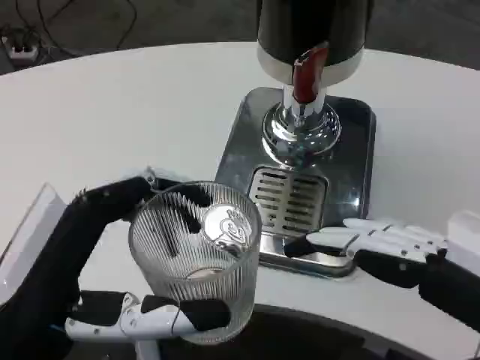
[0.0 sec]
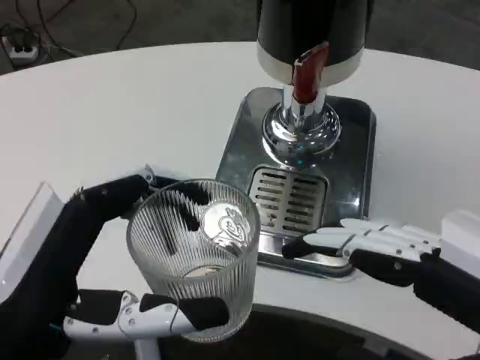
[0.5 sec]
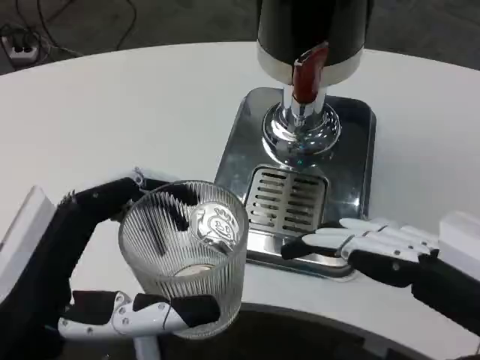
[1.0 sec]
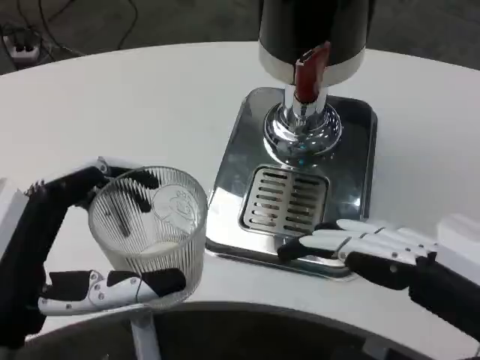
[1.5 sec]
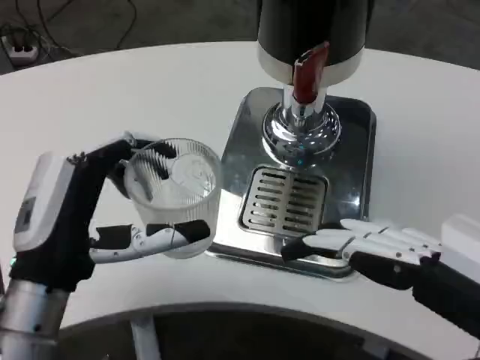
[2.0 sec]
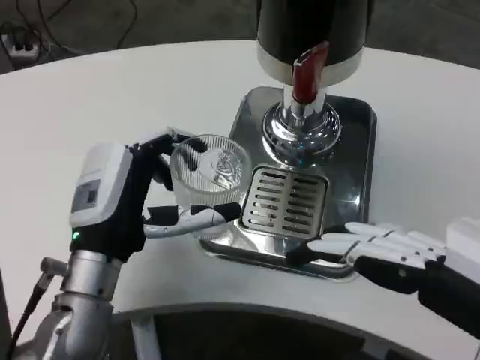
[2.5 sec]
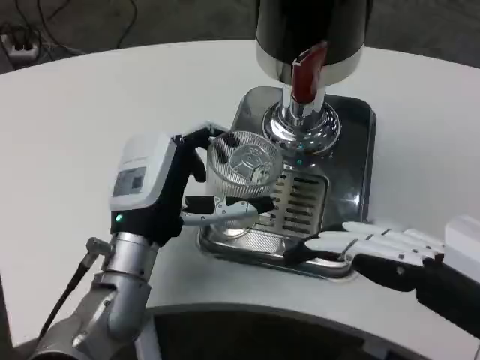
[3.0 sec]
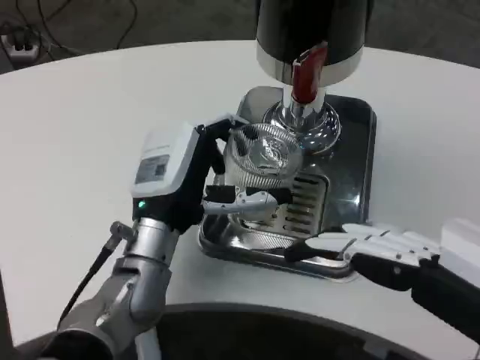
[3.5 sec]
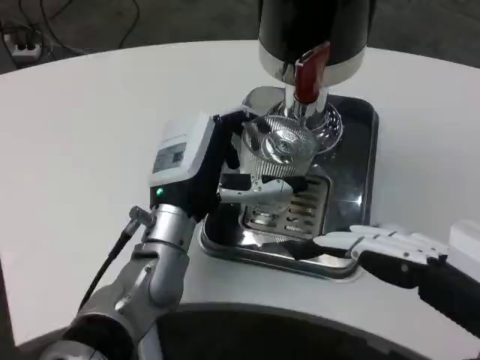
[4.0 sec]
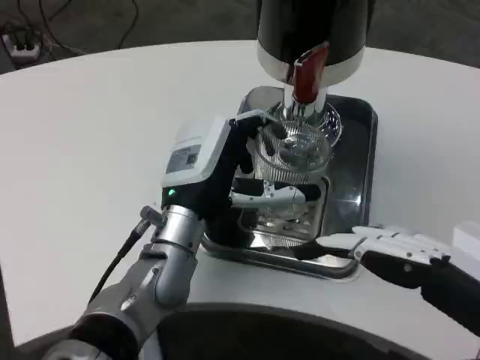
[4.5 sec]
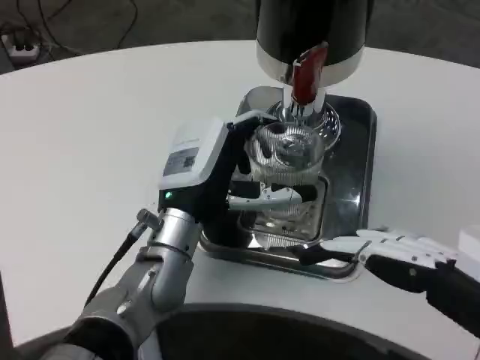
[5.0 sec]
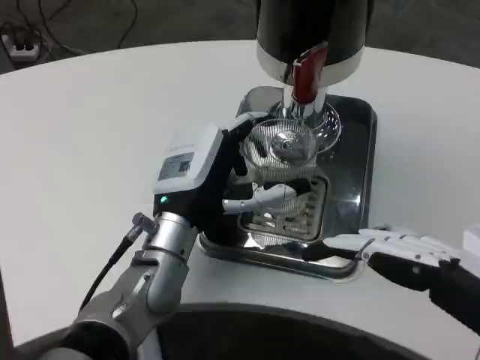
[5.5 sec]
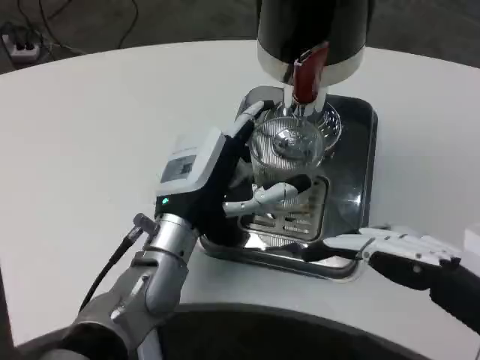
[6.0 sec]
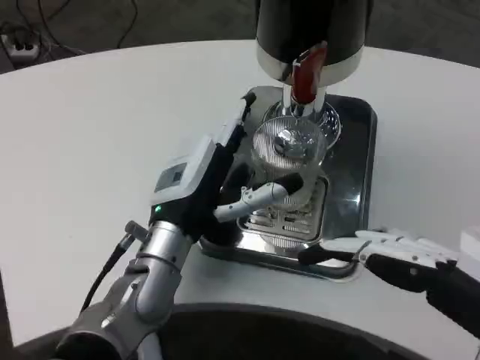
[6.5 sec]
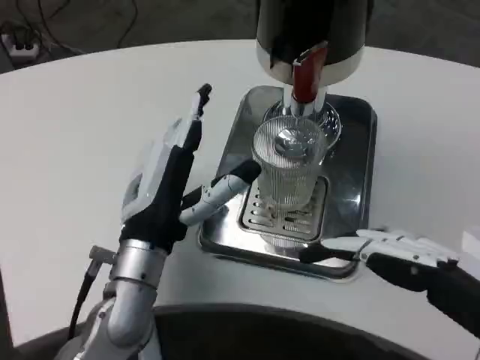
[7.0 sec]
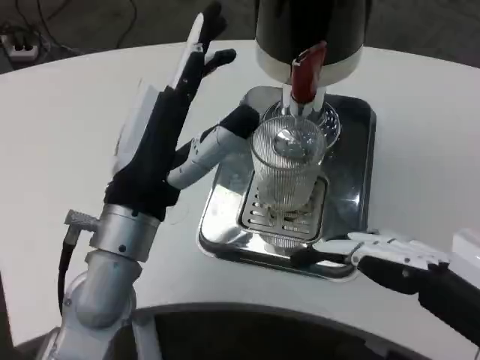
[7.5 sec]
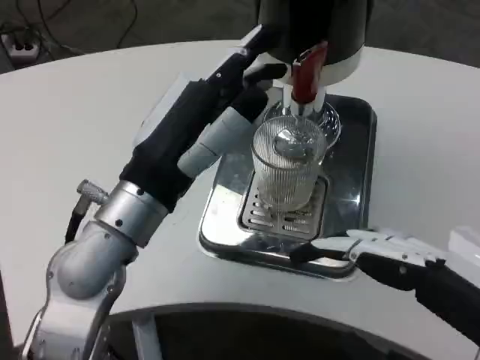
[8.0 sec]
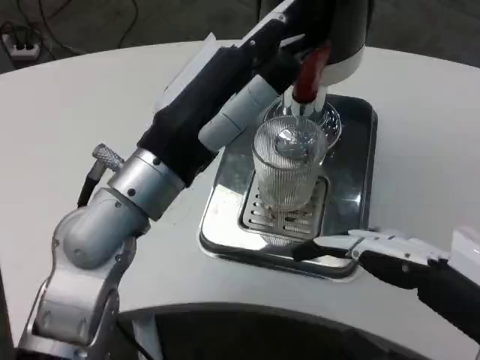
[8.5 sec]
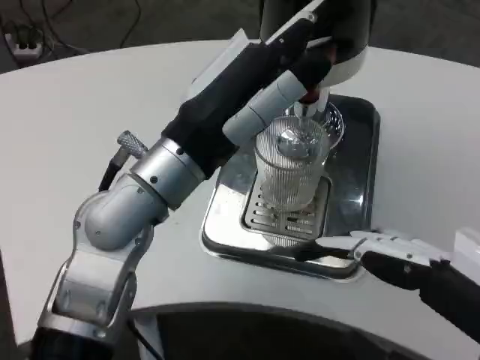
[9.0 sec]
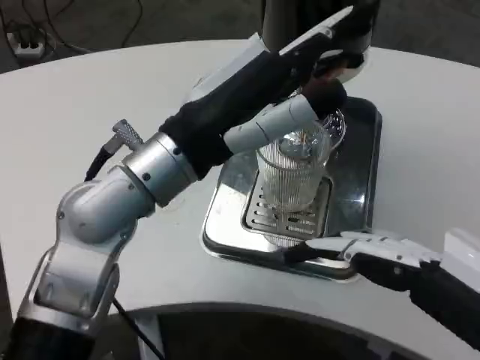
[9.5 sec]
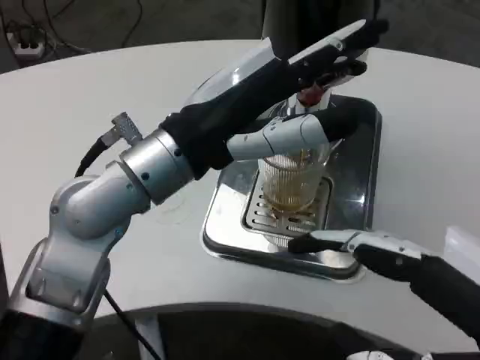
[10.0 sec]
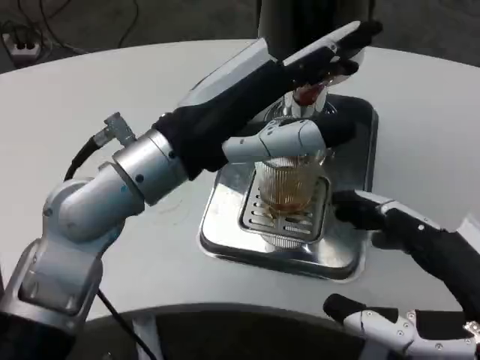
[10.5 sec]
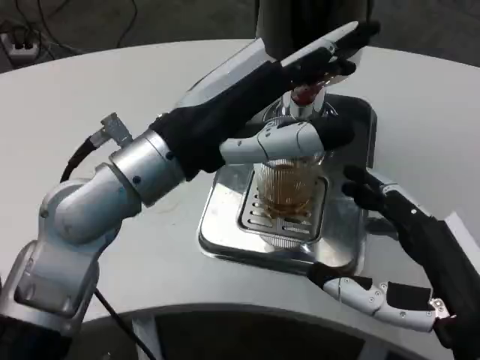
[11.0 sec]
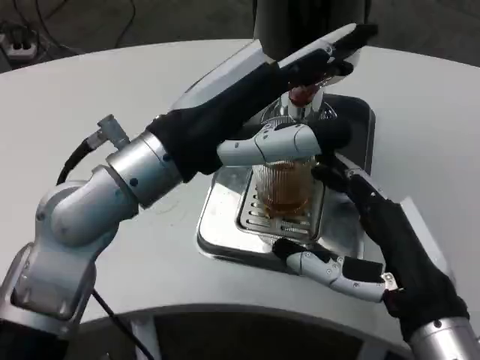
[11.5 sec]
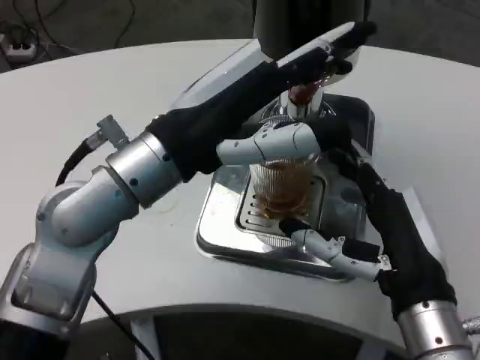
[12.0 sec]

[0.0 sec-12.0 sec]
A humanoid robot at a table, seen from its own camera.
Task of the whole recording: Grasp the cup under the faucet to collect the drink, then remove the cup.
0.0 sec to 2.0 sec: The left hand shifts approximately 10 cm forward.
2.0 sec to 4.0 sec: The left hand heads forward and to the right, covering about 15 cm.
4.0 sec to 6.0 sec: The hands stay close to where they were, moving slightly.
6.0 sec to 8.0 sec: The left hand goes some 10 cm upward.
8.0 sec to 10.0 sec: The left hand goes some 5 cm upward.
10.0 sec to 12.0 sec: The right hand is displaced forward, downward and to the left by approximately 15 cm.

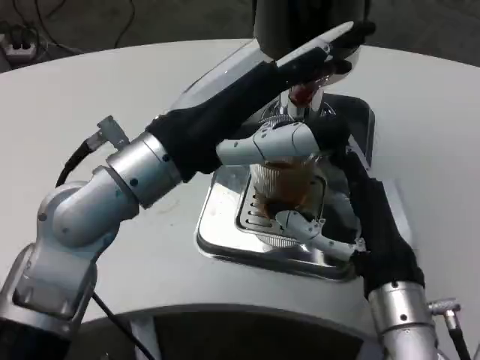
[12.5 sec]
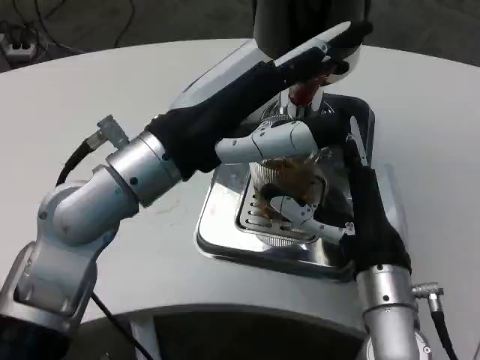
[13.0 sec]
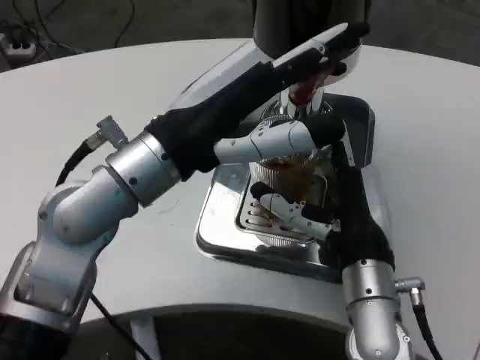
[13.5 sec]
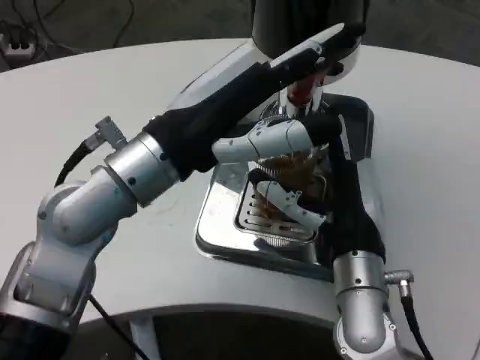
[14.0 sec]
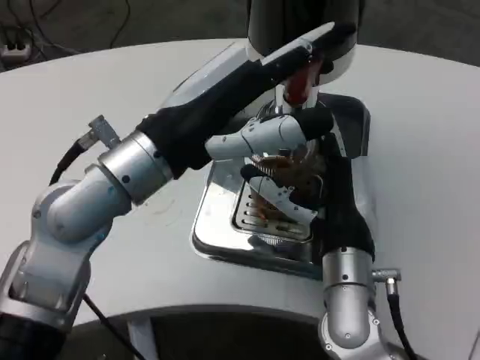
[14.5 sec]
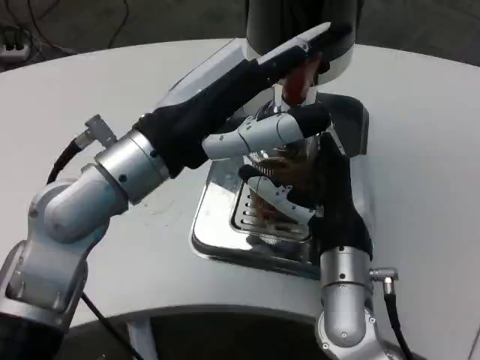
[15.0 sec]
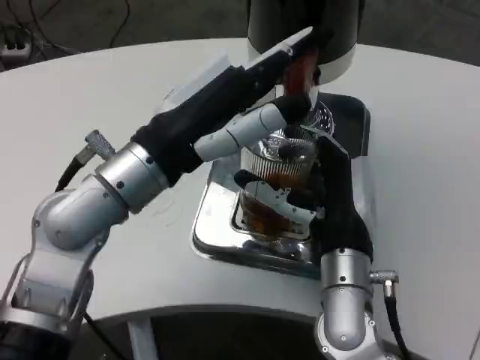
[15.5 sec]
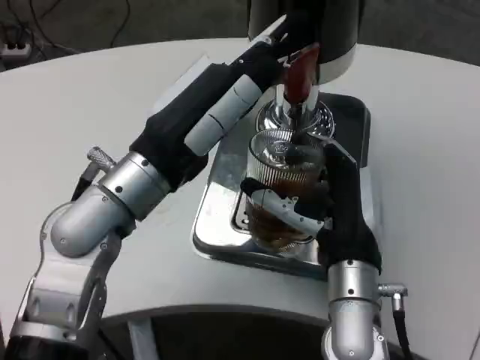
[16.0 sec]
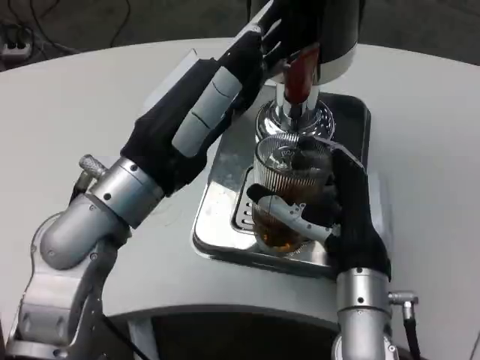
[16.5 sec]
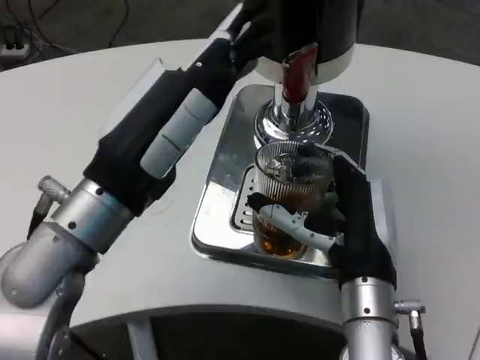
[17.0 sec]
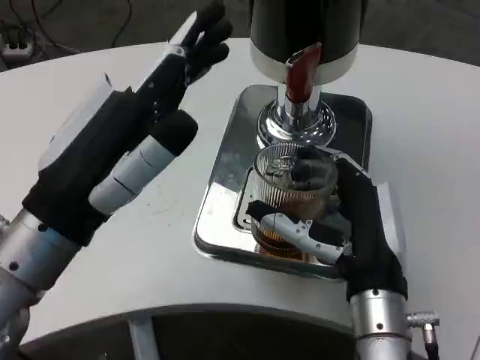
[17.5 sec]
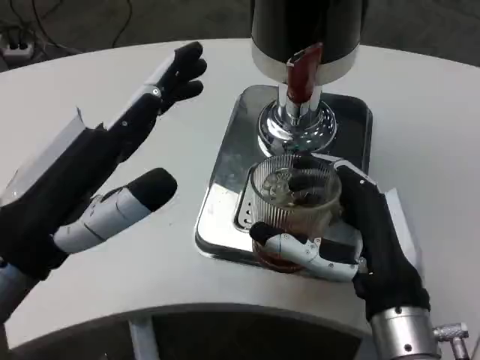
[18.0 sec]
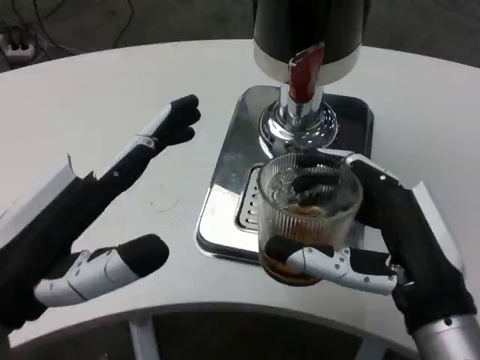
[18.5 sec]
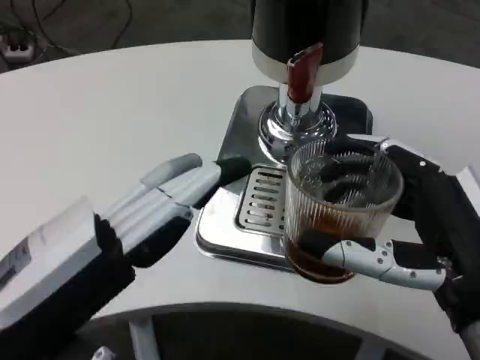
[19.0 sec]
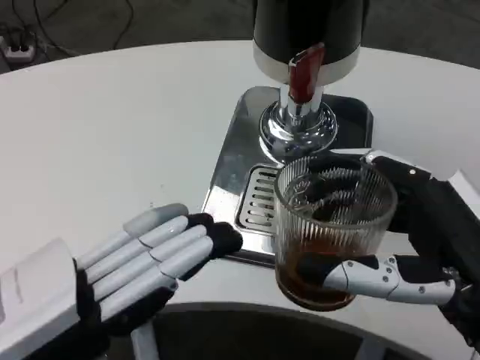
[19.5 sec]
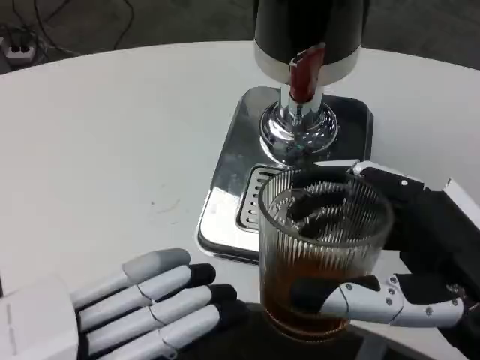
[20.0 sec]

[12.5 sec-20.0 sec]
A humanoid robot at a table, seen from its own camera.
Task of the whole recording: Grasp the cup under the faucet to collect the drink, then remove the cup.
12.5 sec to 14.5 sec: The right hand changes place by some 5 cm.
16.5 sec to 18.0 sec: The left hand moves backward and to the left, roughly 10 cm. Meanwhile the right hand moves backward, roughly 5 cm.
18.0 sec to 20.0 sec: The right hand goes approximately 15 cm backward, upward and to the right, while the left hand heads backward, covering approximately 10 cm.

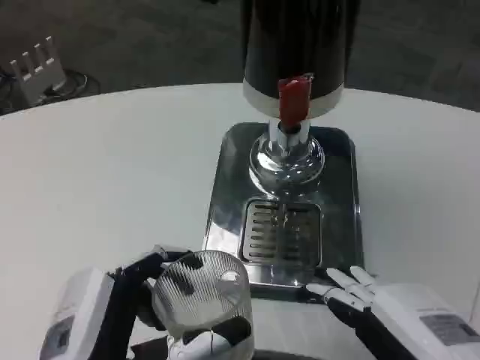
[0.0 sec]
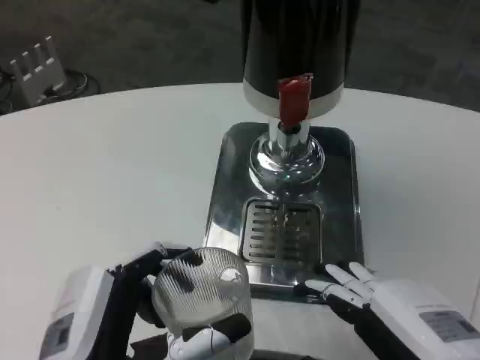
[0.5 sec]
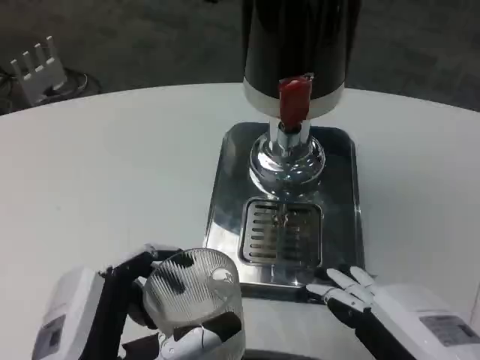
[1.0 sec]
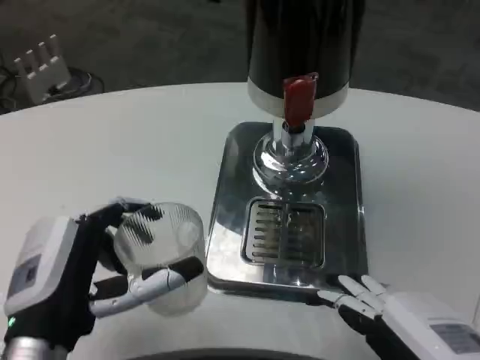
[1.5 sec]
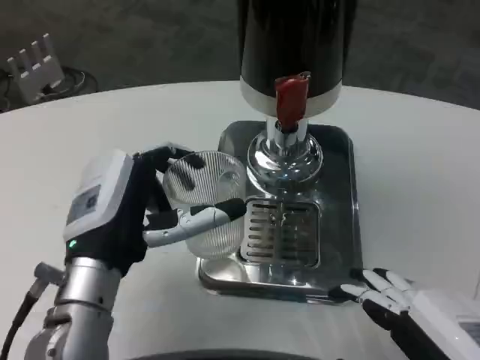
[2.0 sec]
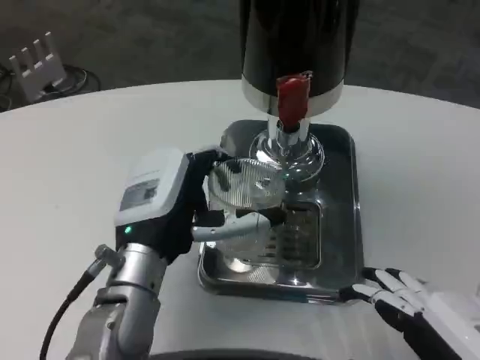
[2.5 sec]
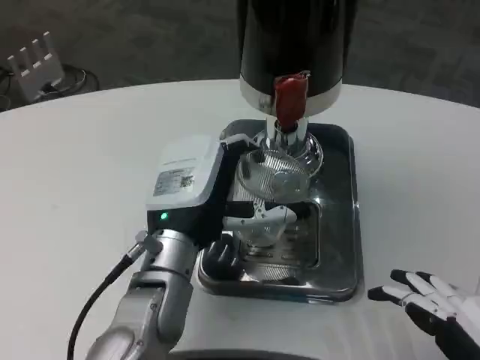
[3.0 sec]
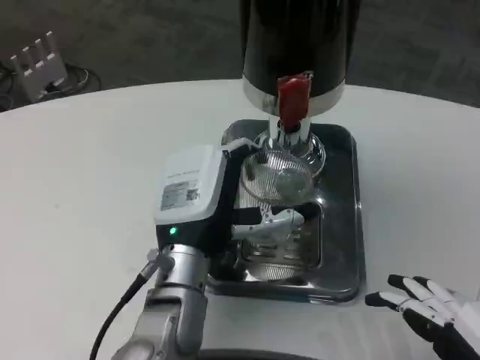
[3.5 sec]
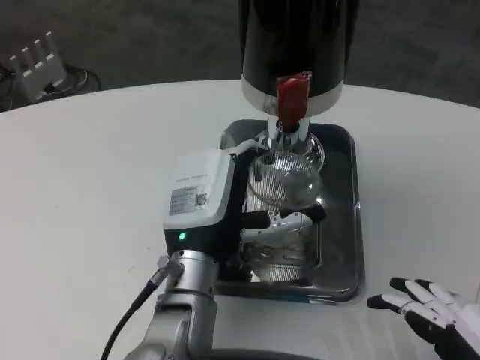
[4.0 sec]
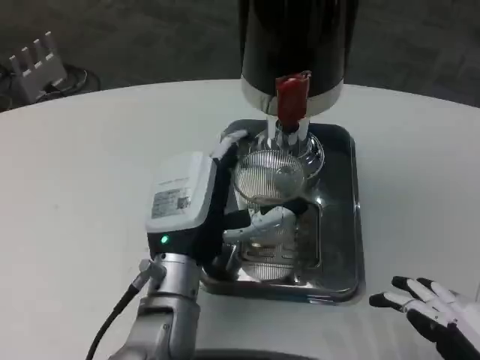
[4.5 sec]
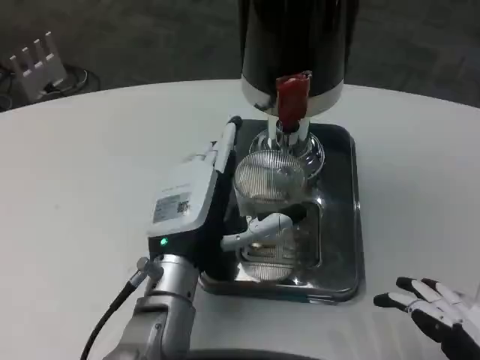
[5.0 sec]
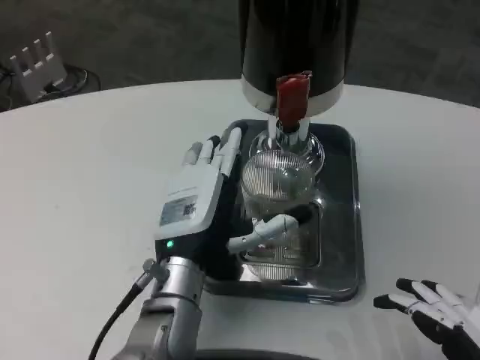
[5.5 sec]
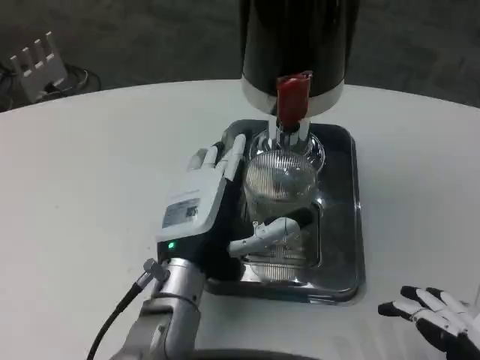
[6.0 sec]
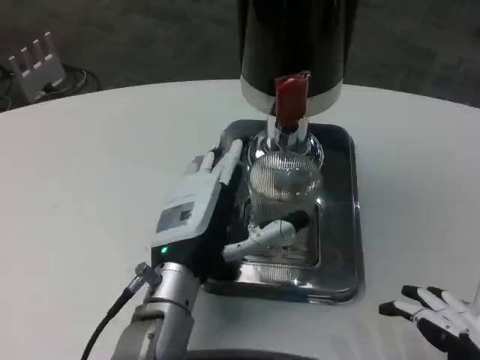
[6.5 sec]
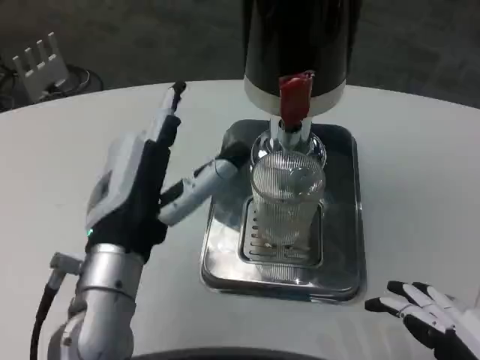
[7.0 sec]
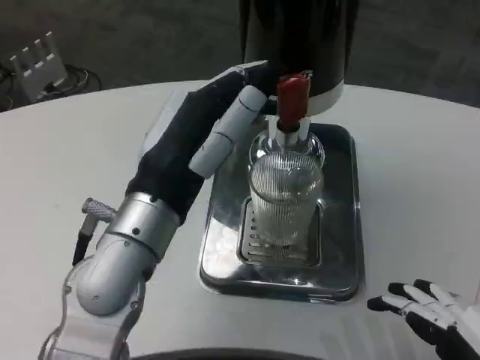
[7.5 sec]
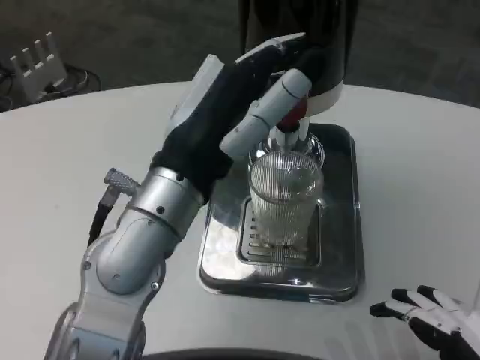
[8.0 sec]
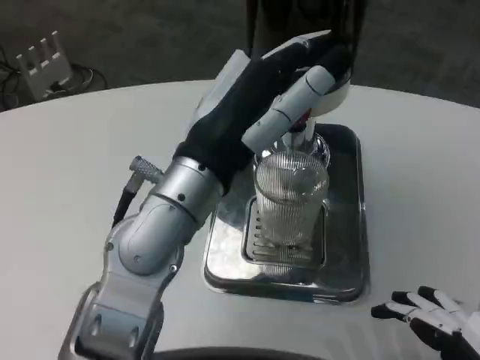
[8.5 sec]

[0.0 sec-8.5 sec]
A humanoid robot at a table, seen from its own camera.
Task of the whole recording: Grasp the cup under the faucet to collect the drink, then remove the cup.
0.0 sec to 2.0 sec: The left hand moves forward, approximately 10 cm.
2.0 sec to 4.0 sec: The left hand moves to the right, some 10 cm.
4.0 sec to 6.5 sec: The hands make only small movements.
6.5 sec to 8.5 sec: The left hand shifts some 15 cm upward.
